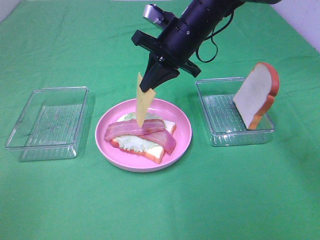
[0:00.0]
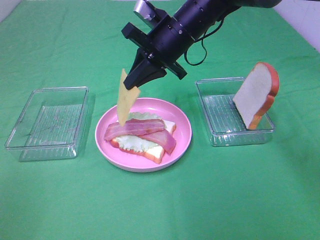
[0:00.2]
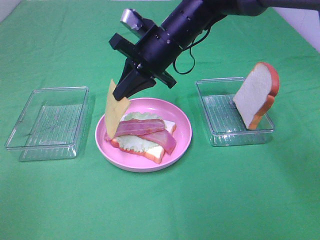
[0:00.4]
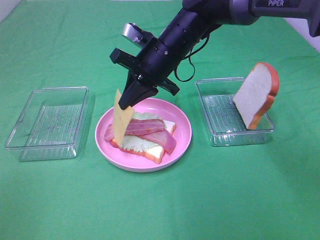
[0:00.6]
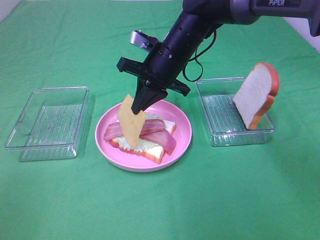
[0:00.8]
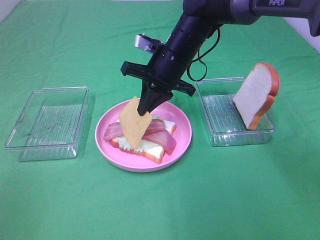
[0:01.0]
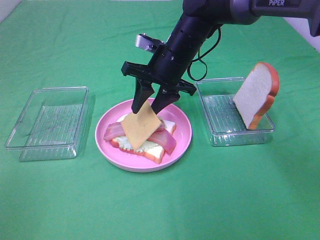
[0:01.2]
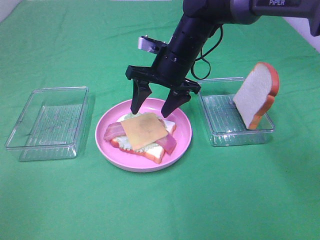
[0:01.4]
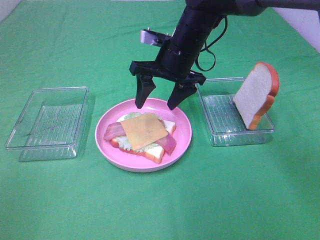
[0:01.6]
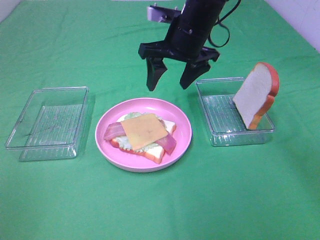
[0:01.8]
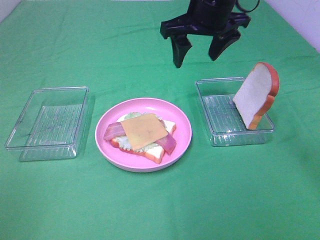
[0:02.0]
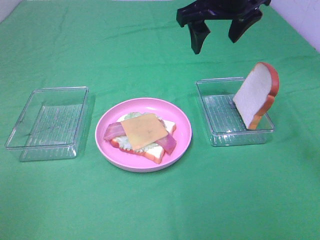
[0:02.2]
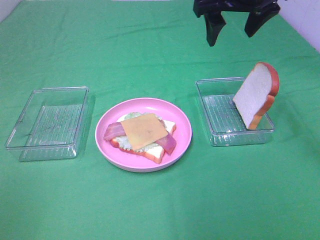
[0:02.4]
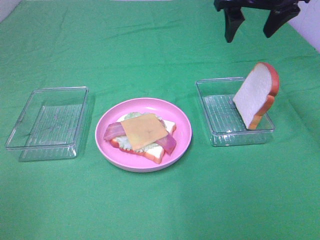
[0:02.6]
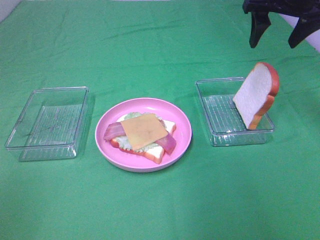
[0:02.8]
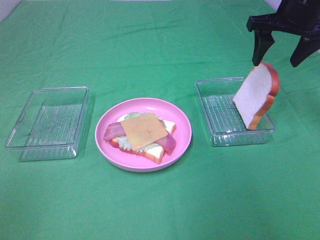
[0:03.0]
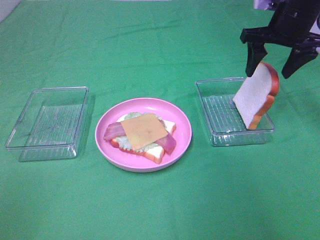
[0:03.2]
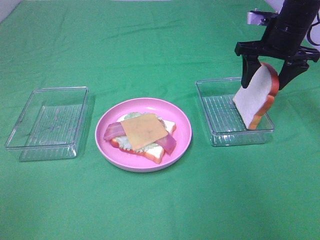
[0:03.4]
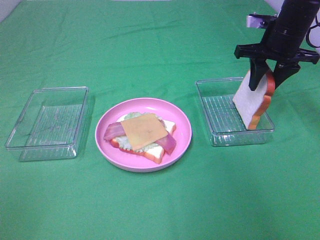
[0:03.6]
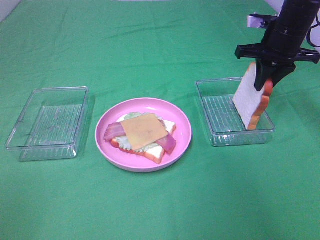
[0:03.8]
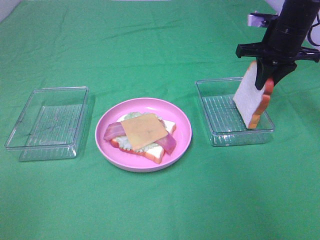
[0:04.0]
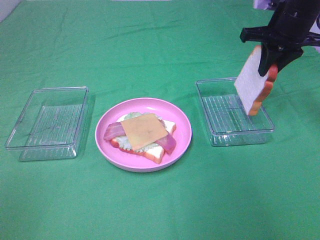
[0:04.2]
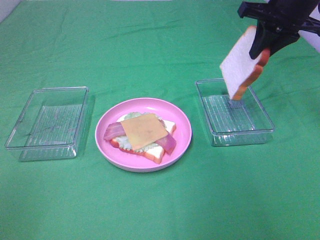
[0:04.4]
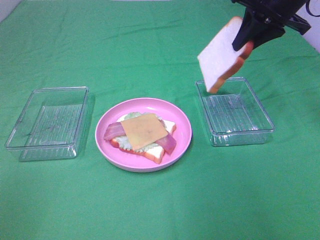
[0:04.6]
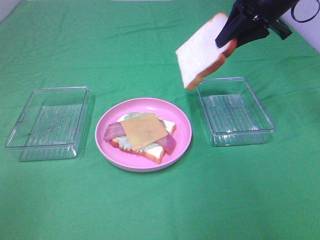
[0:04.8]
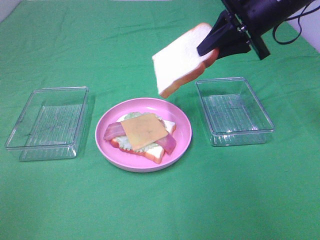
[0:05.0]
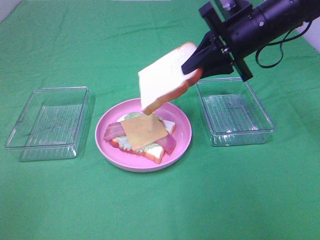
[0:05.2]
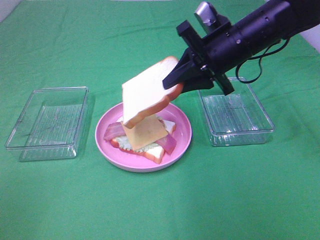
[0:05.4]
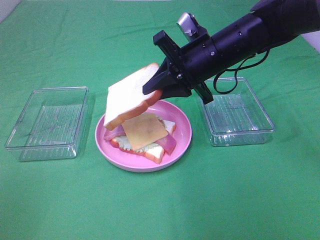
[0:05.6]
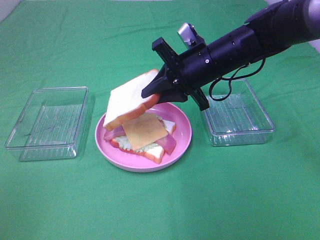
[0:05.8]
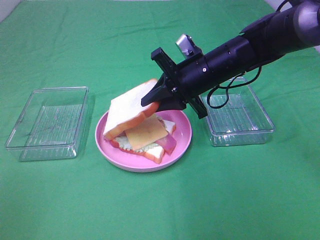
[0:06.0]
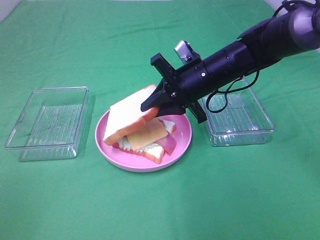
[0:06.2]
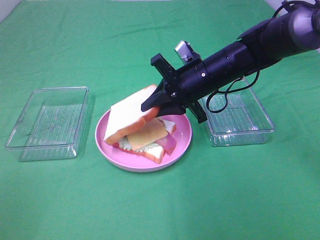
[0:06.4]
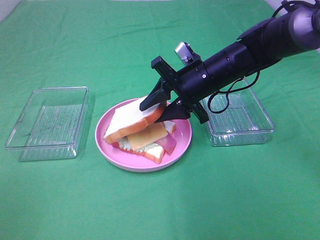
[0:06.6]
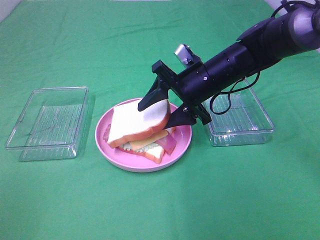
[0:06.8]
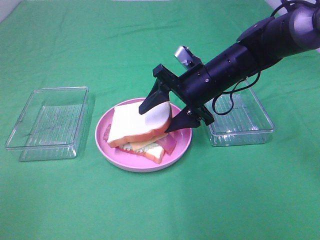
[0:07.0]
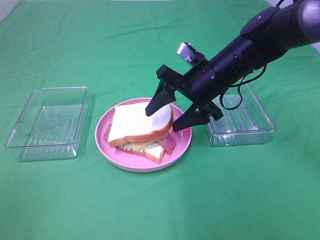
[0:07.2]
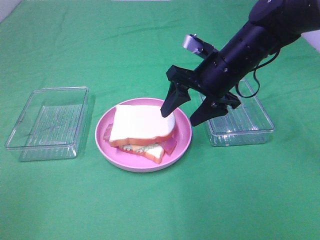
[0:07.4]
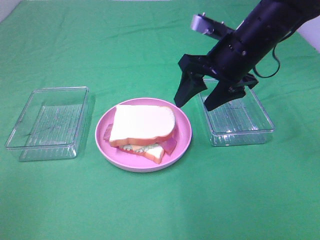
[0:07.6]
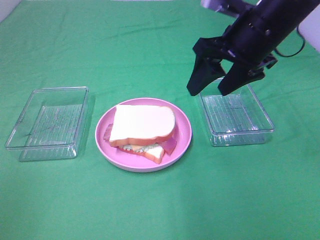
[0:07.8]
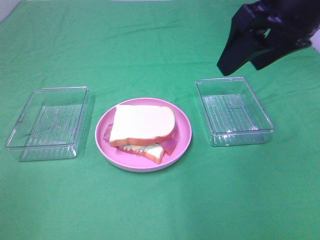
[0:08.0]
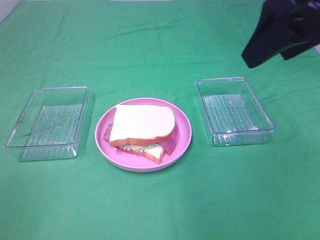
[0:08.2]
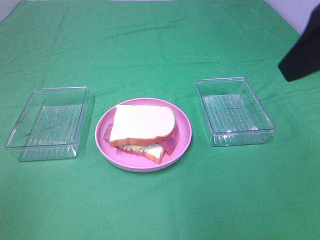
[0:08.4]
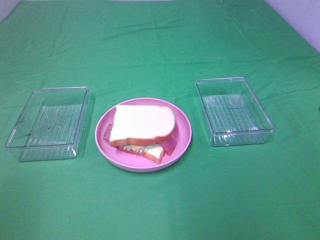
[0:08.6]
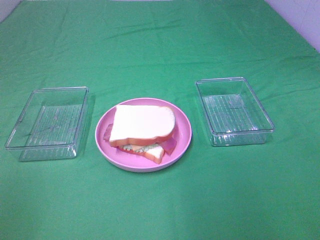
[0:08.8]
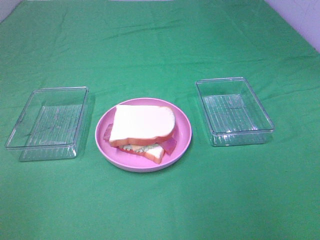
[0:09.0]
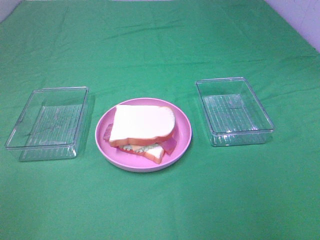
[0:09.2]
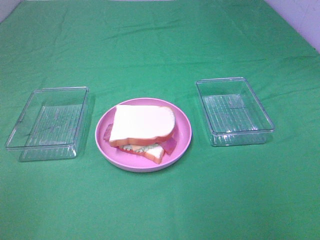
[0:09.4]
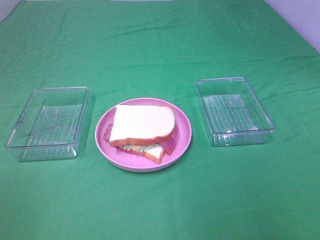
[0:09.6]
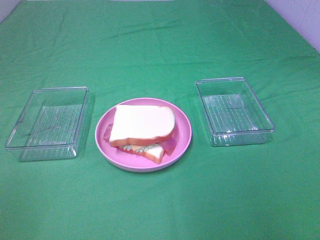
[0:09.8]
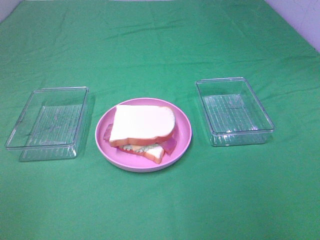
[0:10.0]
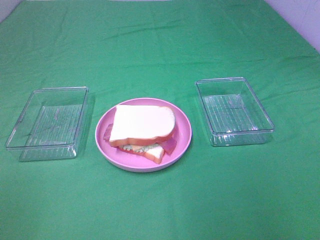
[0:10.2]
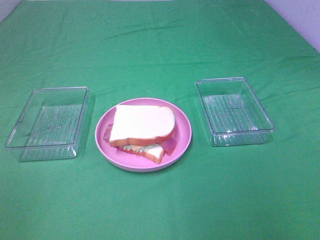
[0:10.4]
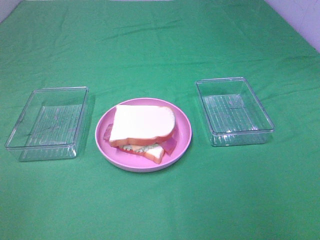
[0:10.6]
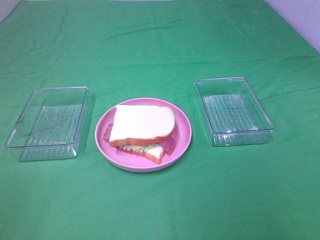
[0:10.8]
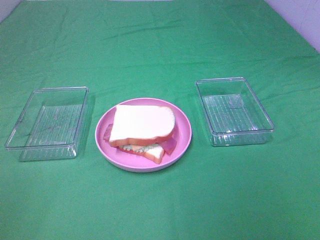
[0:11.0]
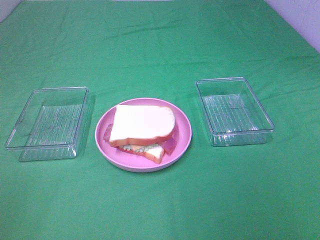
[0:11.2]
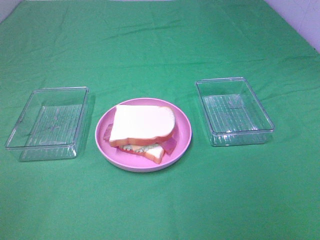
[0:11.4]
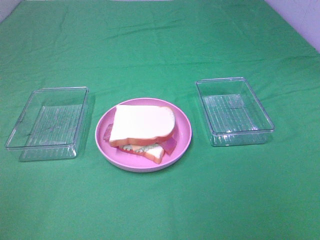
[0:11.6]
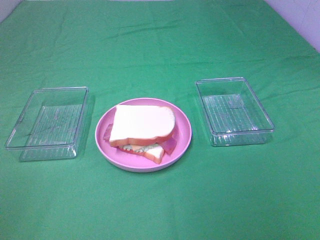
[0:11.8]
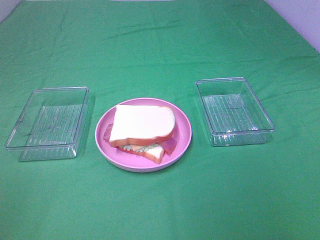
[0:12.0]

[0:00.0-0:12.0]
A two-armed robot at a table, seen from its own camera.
Task of the whole recording: Make sandwiches.
Step, 0:00.0 to 0:01.4: Right hand:place the cheese slice on top of the bacon.
Step, 0:01.6 to 0:03.8: Right hand:grab the bread slice.
Step, 0:04.0 to 0:07.2: Right hand:place the bread slice on the cheese slice.
0:00.0 to 0:01.6: The right gripper opens up.
0:01.6 to 0:03.0: The right gripper moves to the right and upward, approximately 20 cm.
0:03.0 to 0:04.4: The right gripper reaches about 5 cm downward, then returns, and closes up.
0:04.4 to 0:06.0: The right gripper heads downward and to the left, covering some 20 cm.
0:06.0 to 0:07.6: The right gripper moves upward, approximately 5 cm, and opens.
0:07.6 to 0:09.0: The right gripper goes roughly 30 cm backward and to the right.

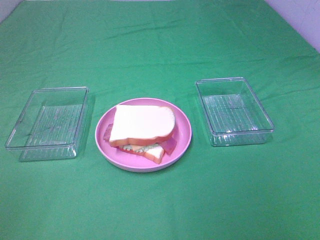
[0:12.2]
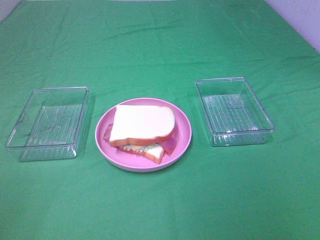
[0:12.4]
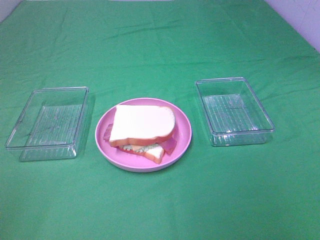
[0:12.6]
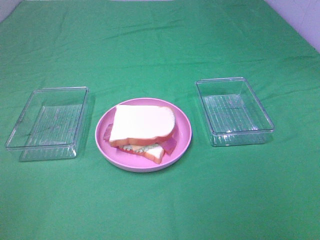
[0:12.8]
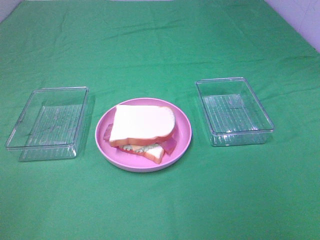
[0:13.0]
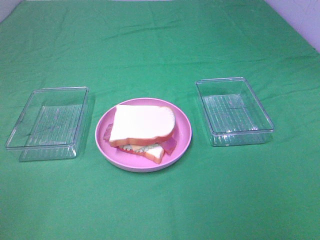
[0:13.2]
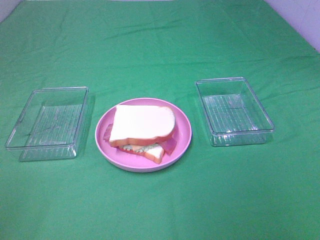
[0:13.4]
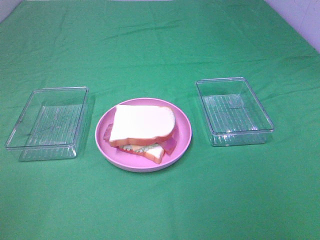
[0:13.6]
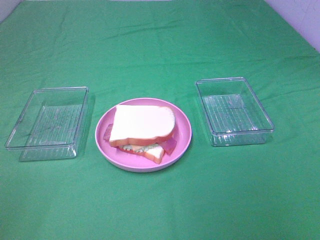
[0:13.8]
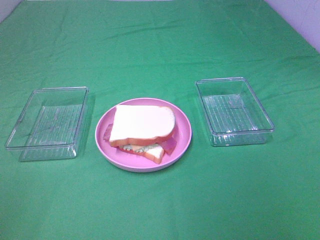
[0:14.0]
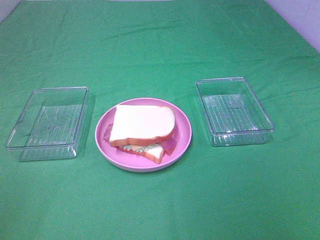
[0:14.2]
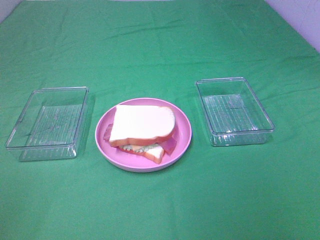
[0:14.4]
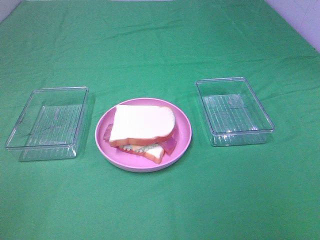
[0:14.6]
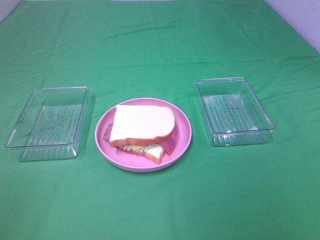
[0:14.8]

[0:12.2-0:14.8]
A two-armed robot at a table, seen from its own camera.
Task of the whole recording: Make sandwiches.
0:12.2 to 0:14.8: Both grippers stay about where they are.

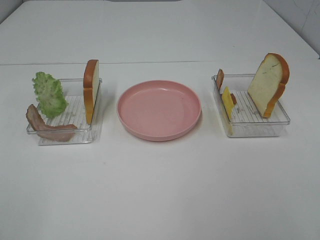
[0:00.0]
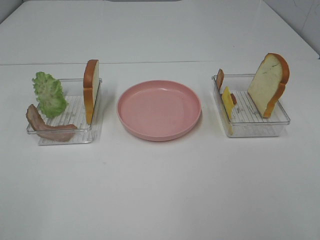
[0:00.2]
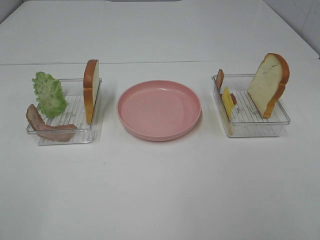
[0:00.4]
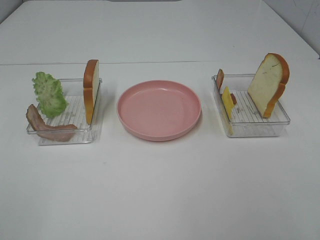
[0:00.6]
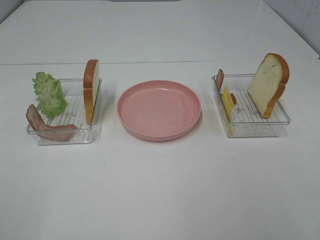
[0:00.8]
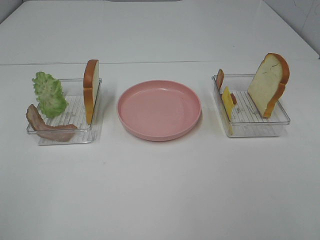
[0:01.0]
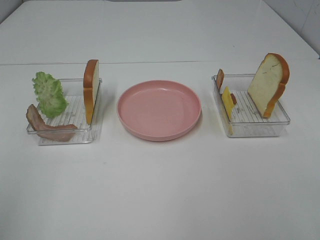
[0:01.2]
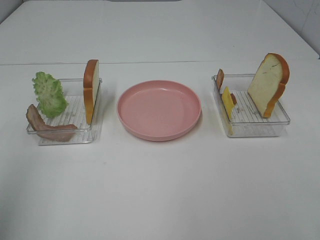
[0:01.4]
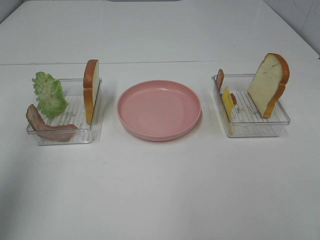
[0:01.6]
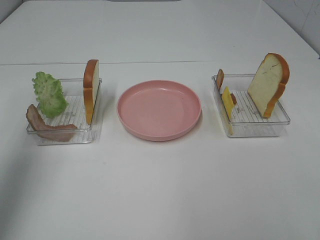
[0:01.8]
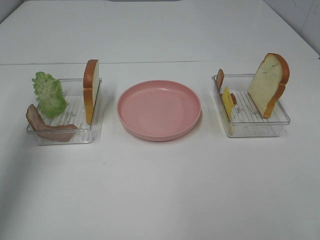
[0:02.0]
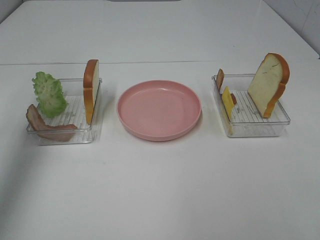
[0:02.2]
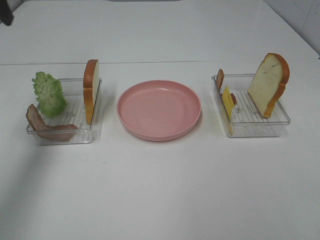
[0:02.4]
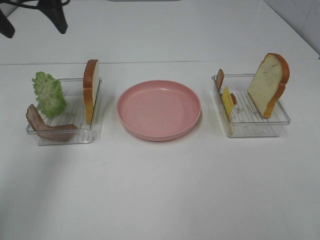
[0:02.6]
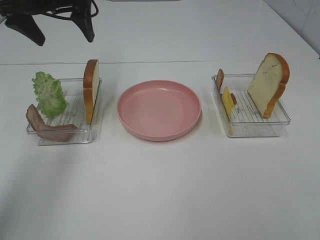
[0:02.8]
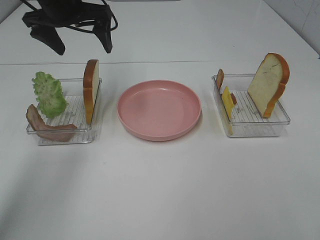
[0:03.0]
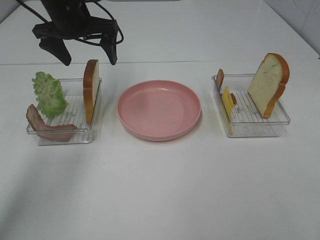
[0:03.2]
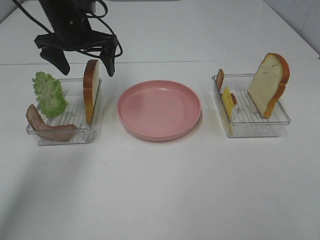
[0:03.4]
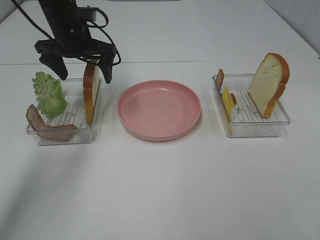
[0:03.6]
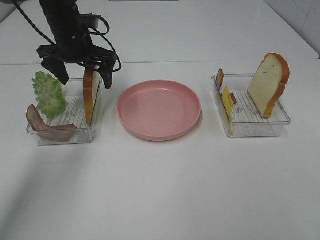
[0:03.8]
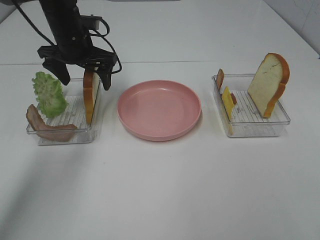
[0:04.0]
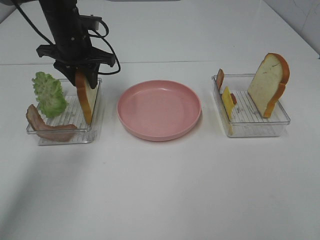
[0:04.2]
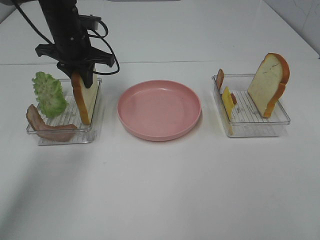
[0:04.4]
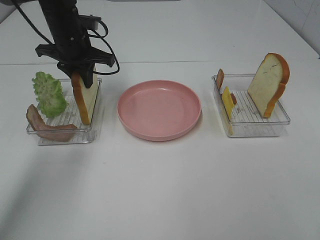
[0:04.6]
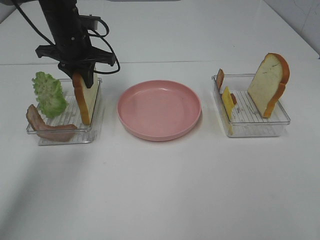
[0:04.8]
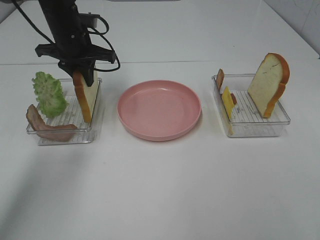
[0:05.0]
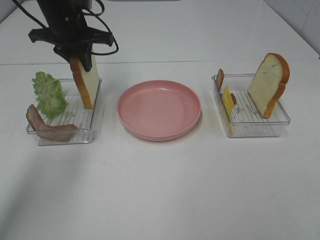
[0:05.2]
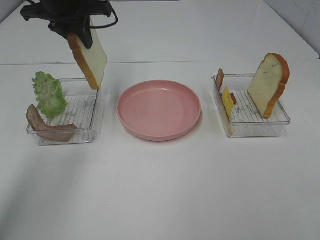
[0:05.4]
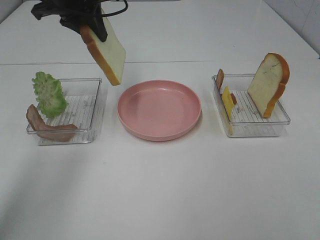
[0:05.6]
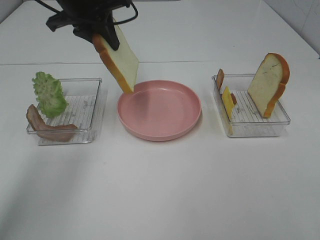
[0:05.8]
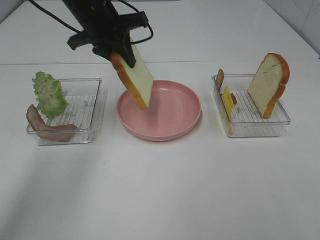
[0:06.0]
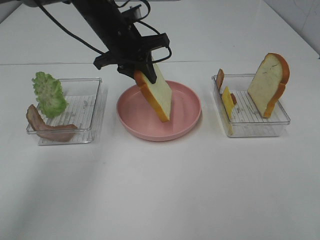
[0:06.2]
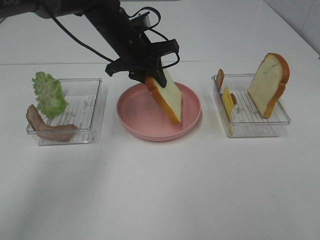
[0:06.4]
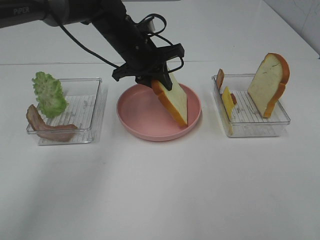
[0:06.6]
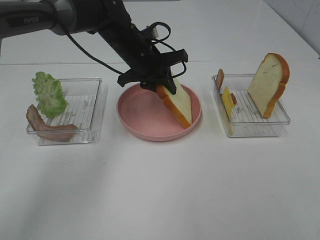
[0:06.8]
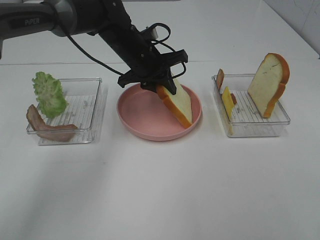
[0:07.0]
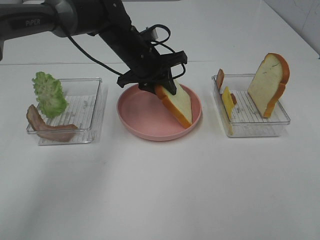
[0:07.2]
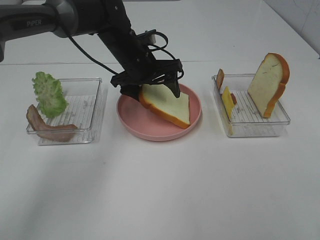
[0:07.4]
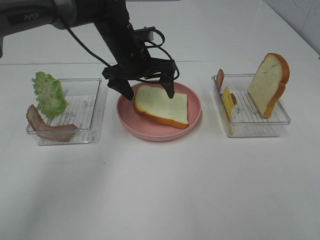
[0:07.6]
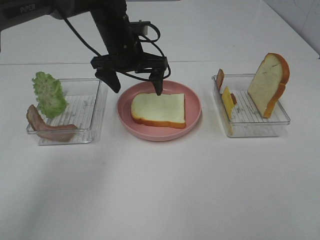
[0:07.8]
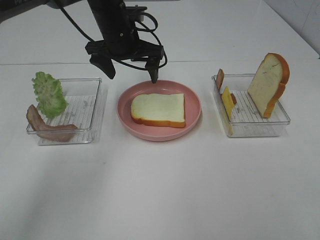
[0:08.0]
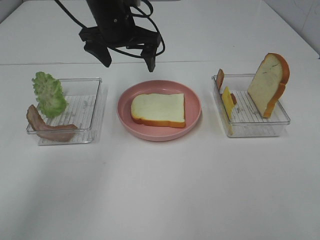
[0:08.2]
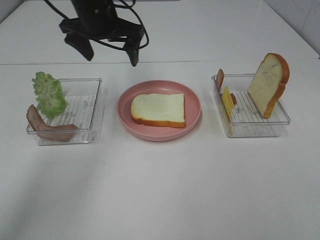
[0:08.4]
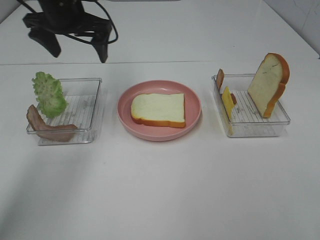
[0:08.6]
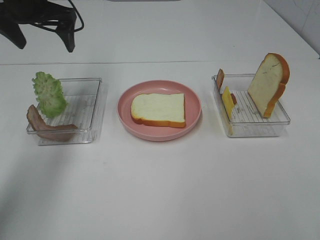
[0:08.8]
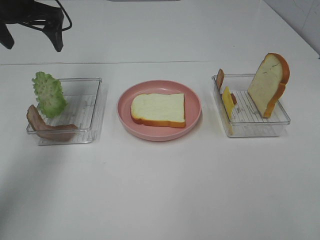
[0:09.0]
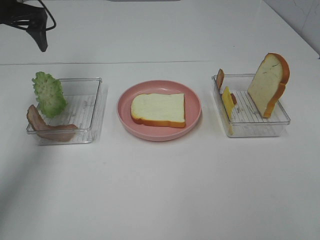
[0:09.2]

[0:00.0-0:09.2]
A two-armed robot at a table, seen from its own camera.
Task of the whole recording: Make sandwiches.
Step, 0:00.0 to 0:04.6: Left hand:grab the bread slice.
Step, 0:04.8 to 0:08.2: Left hand:place the bread slice on the plate.
0:00.0 to 0:01.6: The left gripper moves forward and upward, some 20 cm.
0:01.6 to 0:03.0: The left gripper moves forward, to the right and downward, some 35 cm.
0:03.0 to 0:04.6: The left gripper travels downward by about 10 cm, and closes.
0:04.6 to 0:06.2: The left gripper heads to the right, covering approximately 10 cm, and travels upward and back again, roughly 10 cm each way.
0:06.2 to 0:07.6: The left gripper opens.
0:07.6 to 0:09.2: The left gripper is displaced to the left and upward by approximately 25 cm.
